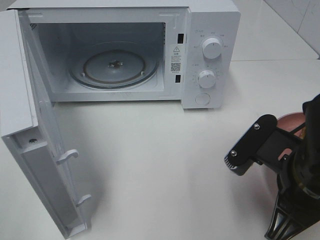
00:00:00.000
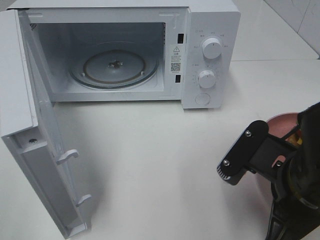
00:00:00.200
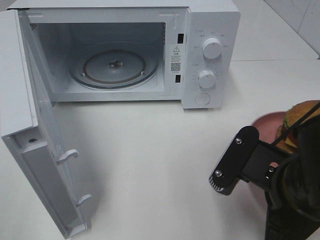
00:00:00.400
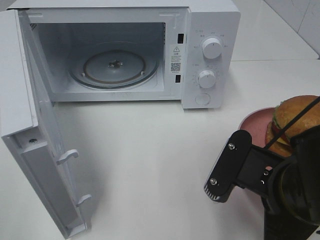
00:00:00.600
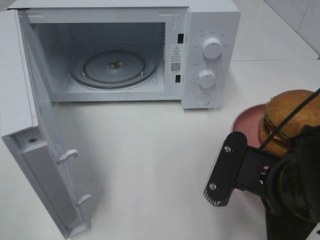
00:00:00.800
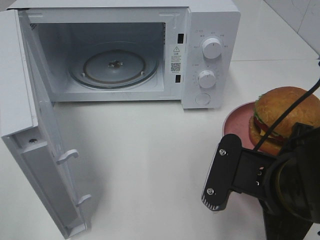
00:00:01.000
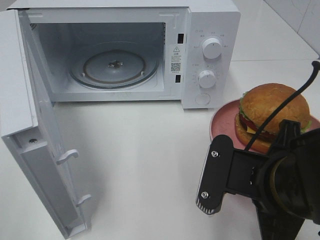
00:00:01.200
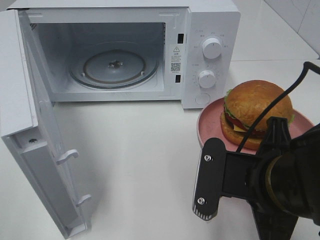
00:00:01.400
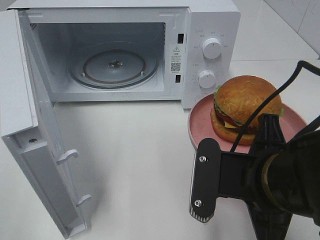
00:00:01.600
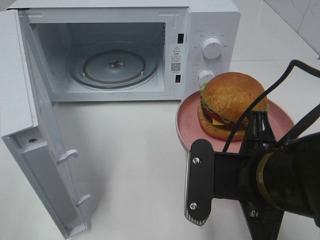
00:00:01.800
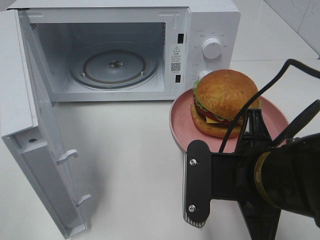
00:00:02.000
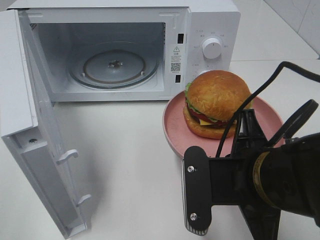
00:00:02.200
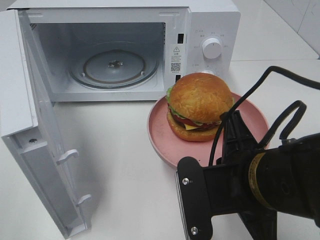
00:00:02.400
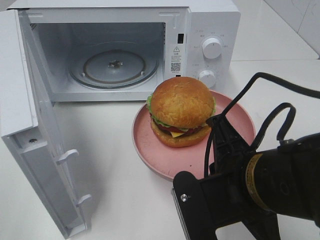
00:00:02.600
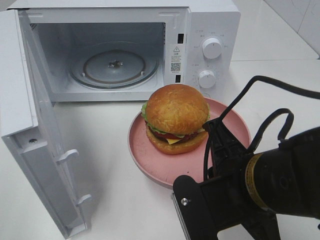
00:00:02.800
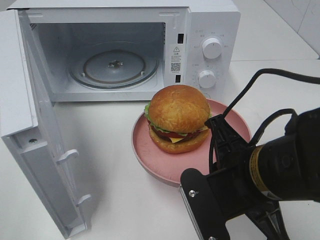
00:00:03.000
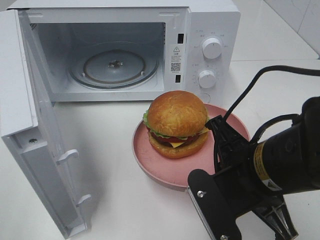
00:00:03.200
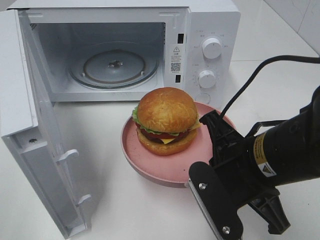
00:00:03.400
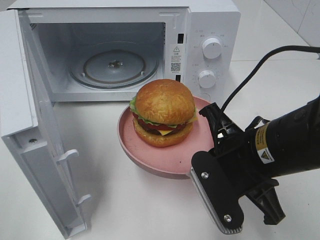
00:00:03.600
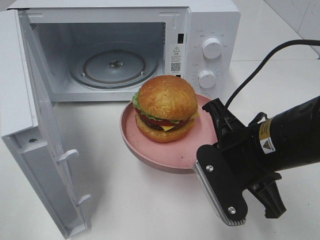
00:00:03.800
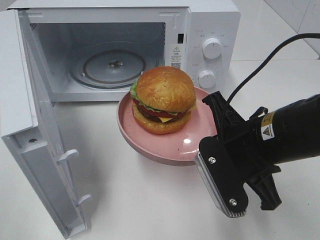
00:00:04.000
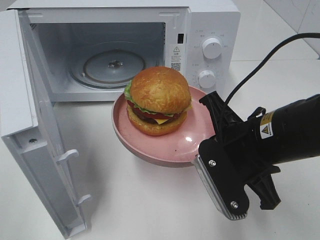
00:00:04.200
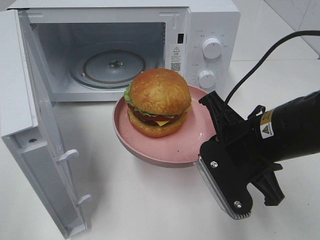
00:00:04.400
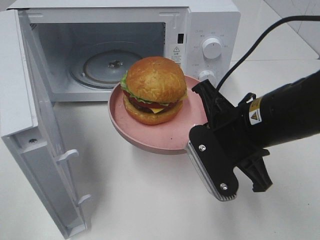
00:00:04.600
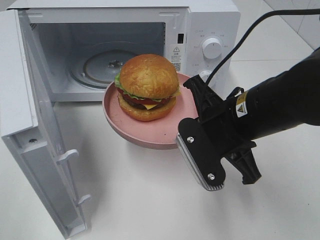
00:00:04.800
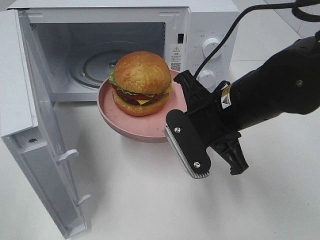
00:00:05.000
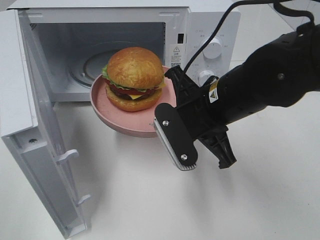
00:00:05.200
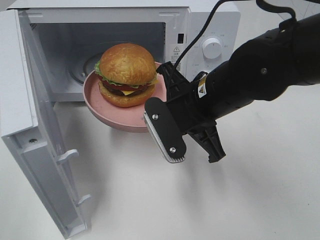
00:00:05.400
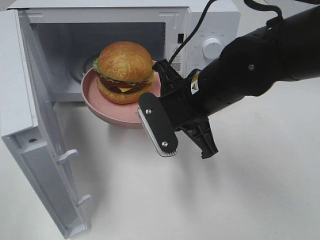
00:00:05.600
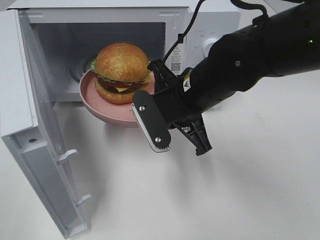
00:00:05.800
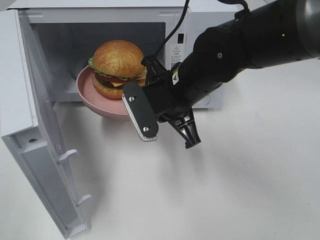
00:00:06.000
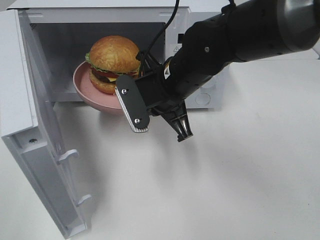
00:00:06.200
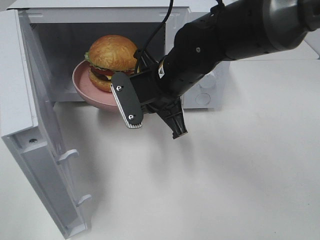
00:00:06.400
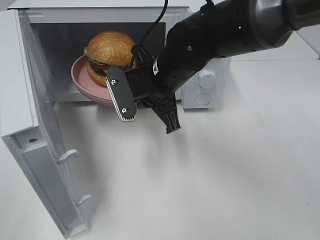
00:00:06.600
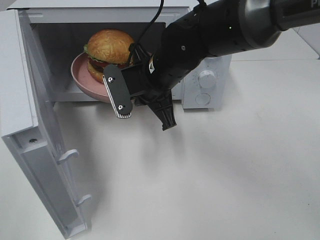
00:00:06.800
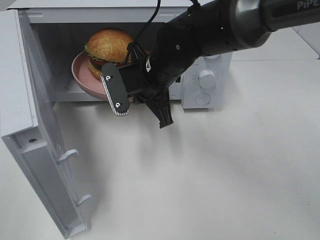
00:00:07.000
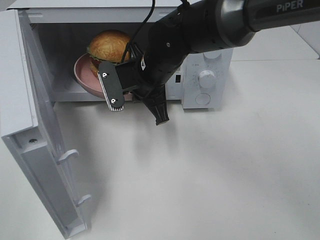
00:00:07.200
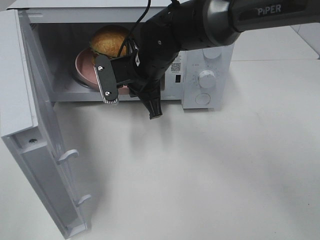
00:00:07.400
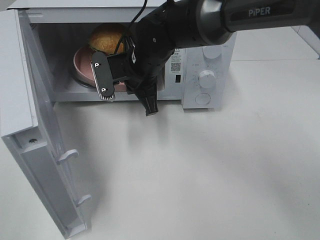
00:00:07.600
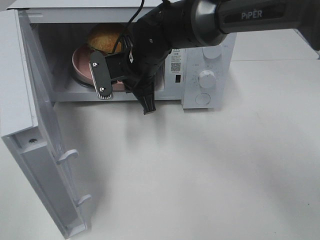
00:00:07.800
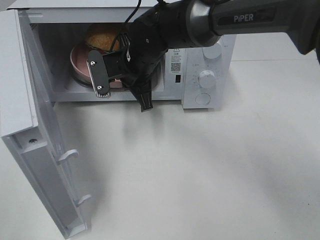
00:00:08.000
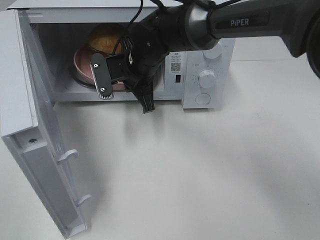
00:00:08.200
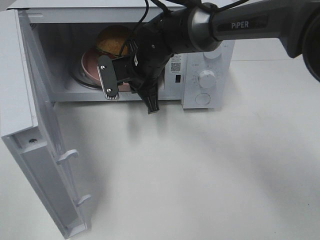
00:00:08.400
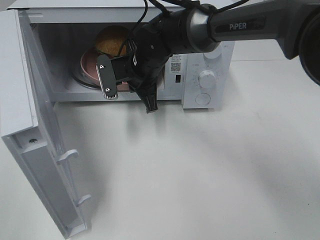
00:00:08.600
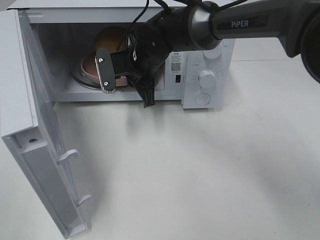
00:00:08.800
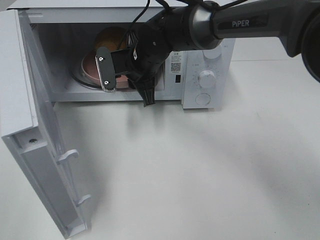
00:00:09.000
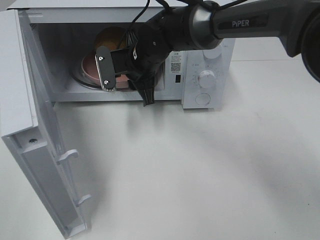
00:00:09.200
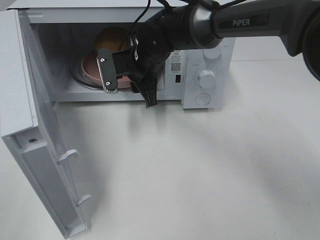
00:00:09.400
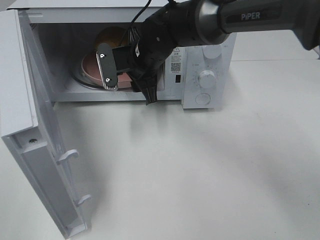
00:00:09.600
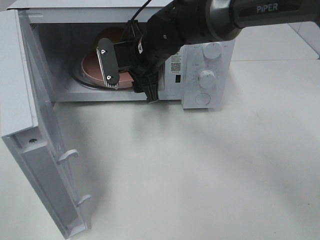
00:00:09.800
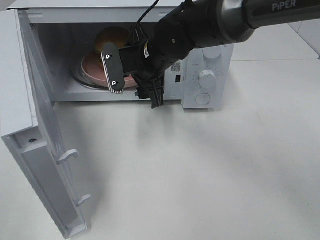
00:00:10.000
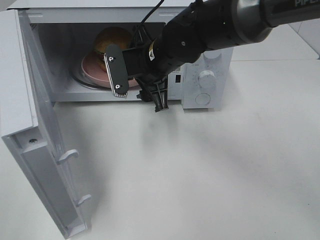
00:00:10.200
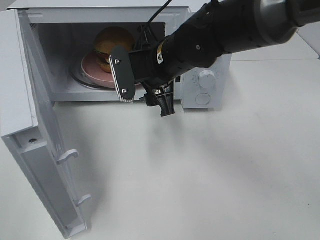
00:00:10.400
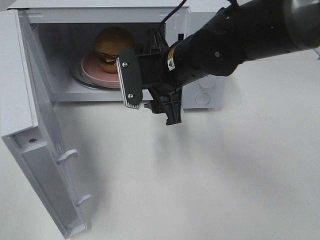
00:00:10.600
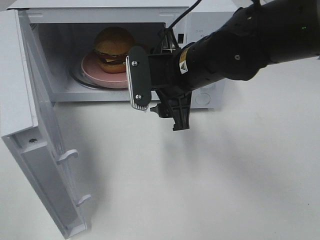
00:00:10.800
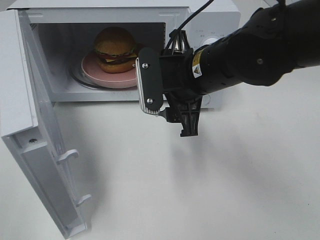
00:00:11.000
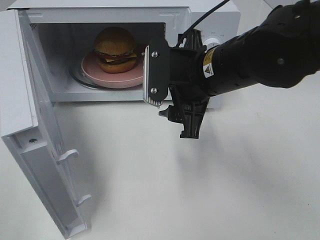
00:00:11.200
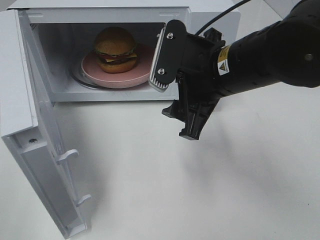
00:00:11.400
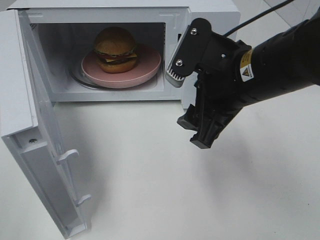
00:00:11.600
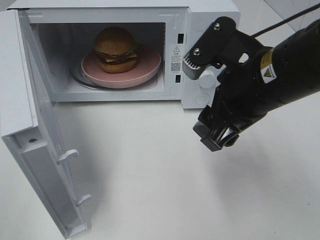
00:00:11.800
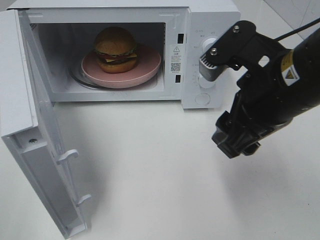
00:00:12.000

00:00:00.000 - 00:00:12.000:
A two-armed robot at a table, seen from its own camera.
Task of the whole recording: Heat the burger.
Step, 00:00:00.000 - 00:00:09.000: Right hand: place the plate in the microwave.
00:00:03.000 - 00:00:04.400: The right gripper ends up about 5 cm from where it was.
00:00:04.400 - 00:00:06.000: The right gripper goes approximately 15 cm forward and to the left.
00:00:06.000 - 00:00:07.600: The right gripper shifts approximately 10 cm forward and to the left.
00:00:07.600 - 00:00:09.000: The right gripper opens up.
00:00:09.000 - 00:00:10.400: The right gripper heads backward, covering roughly 5 cm, and opens its fingers.
00:00:10.400 - 00:00:12.000: The right gripper travels backward, to the right and upward by approximately 20 cm.

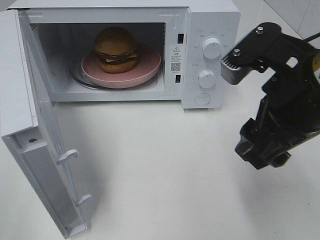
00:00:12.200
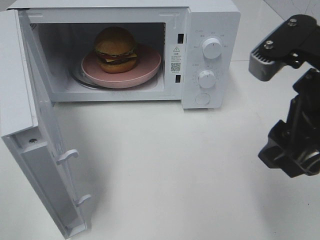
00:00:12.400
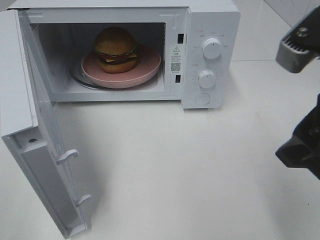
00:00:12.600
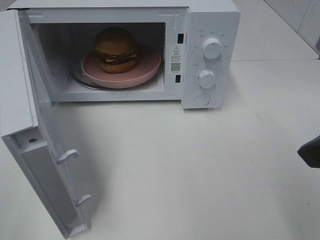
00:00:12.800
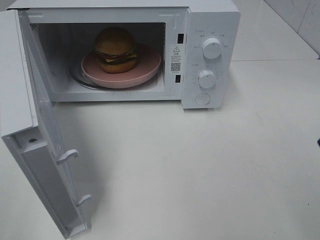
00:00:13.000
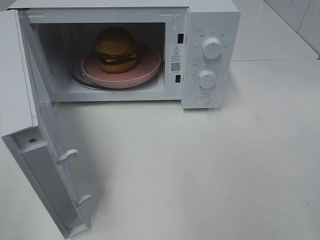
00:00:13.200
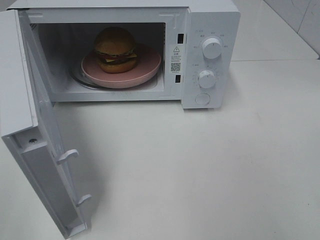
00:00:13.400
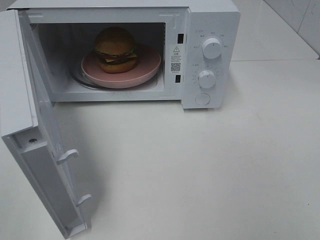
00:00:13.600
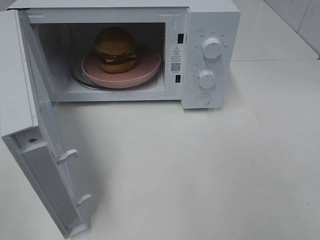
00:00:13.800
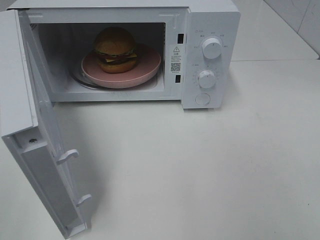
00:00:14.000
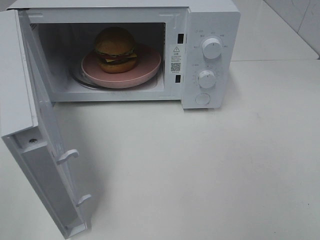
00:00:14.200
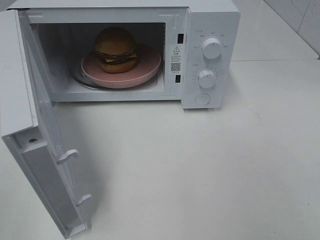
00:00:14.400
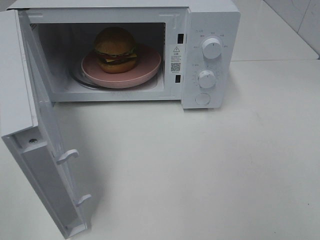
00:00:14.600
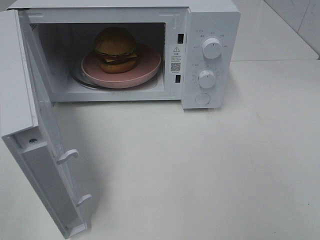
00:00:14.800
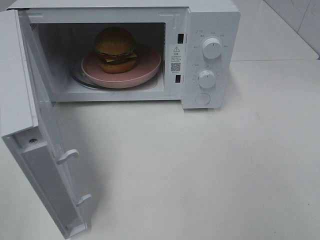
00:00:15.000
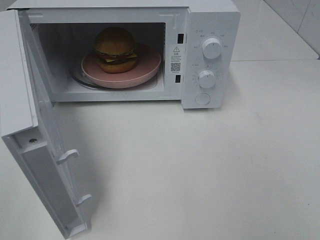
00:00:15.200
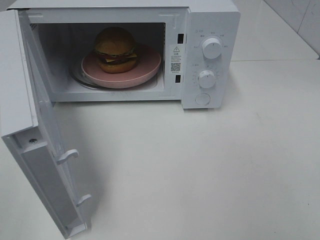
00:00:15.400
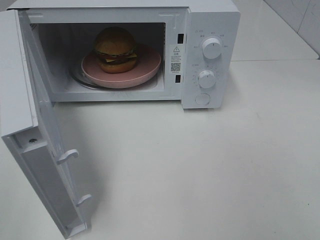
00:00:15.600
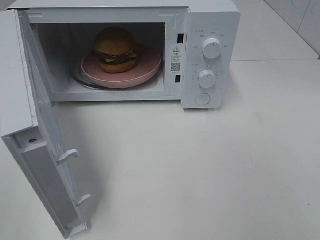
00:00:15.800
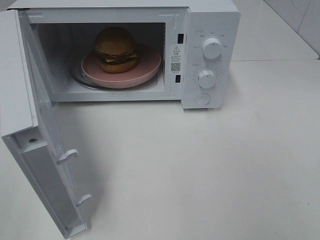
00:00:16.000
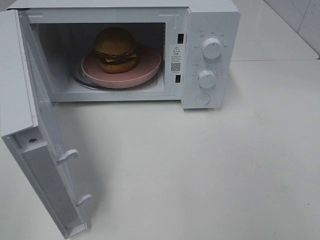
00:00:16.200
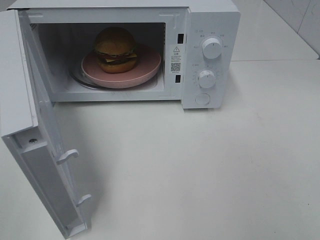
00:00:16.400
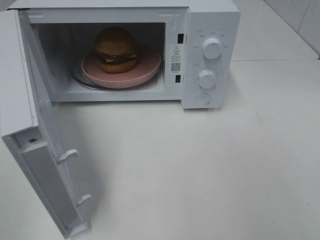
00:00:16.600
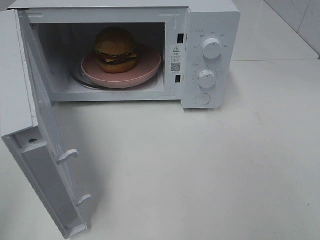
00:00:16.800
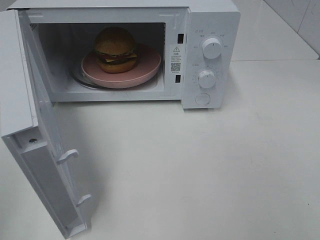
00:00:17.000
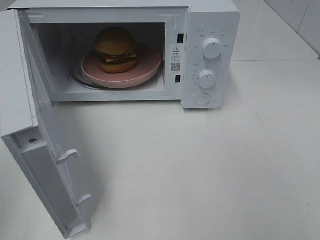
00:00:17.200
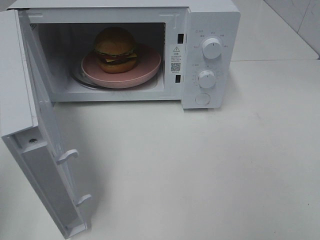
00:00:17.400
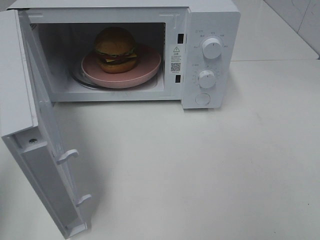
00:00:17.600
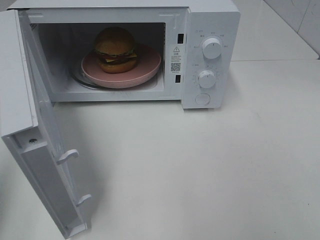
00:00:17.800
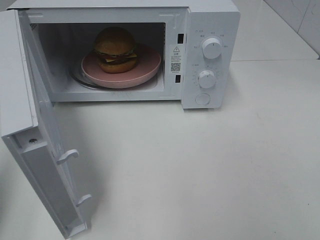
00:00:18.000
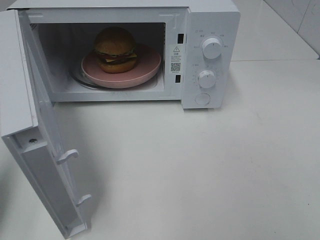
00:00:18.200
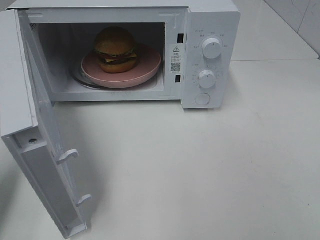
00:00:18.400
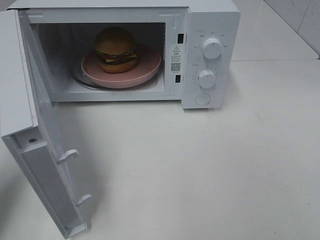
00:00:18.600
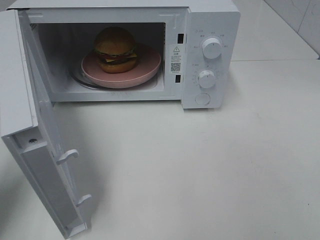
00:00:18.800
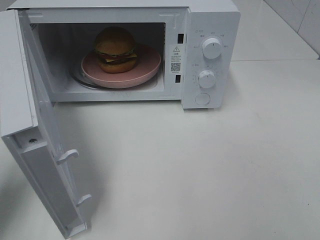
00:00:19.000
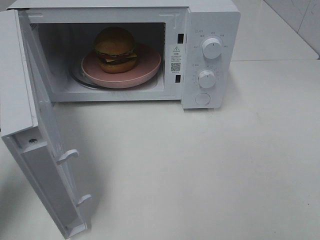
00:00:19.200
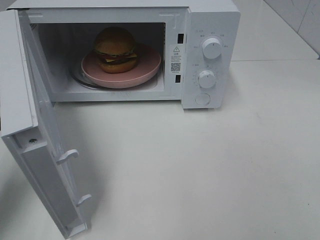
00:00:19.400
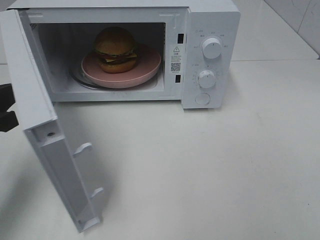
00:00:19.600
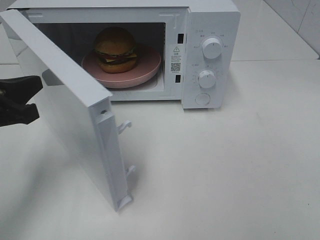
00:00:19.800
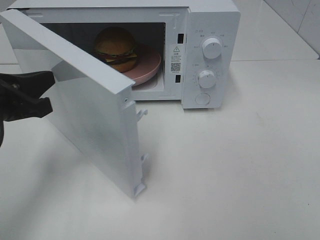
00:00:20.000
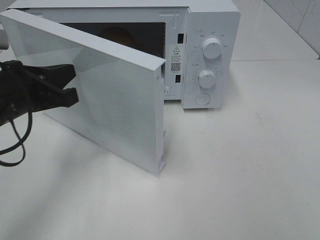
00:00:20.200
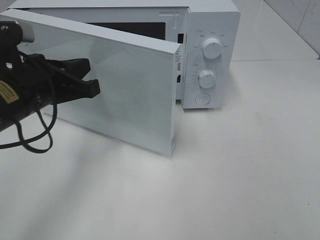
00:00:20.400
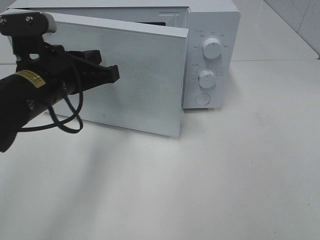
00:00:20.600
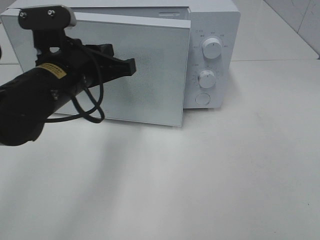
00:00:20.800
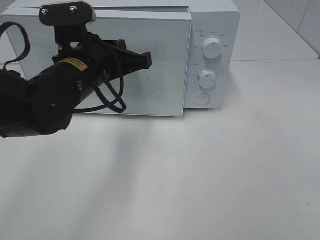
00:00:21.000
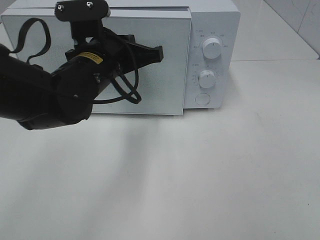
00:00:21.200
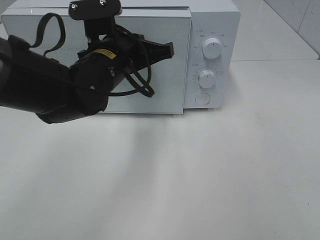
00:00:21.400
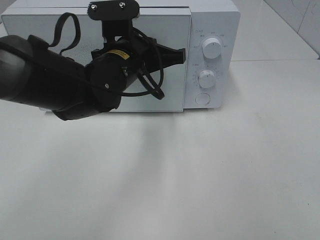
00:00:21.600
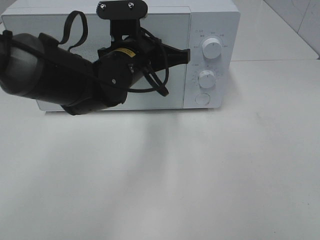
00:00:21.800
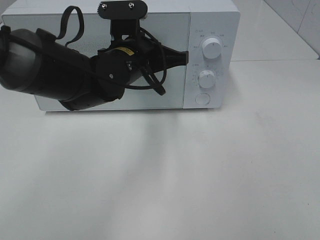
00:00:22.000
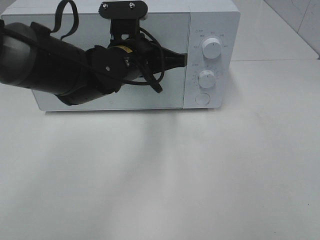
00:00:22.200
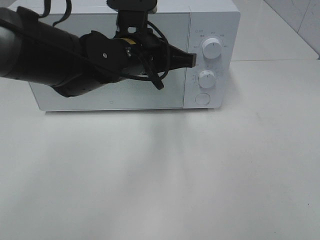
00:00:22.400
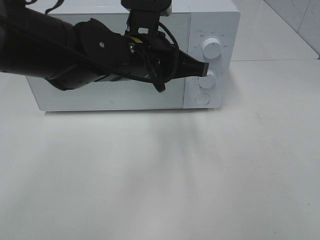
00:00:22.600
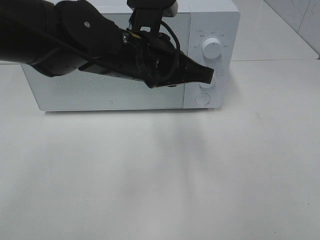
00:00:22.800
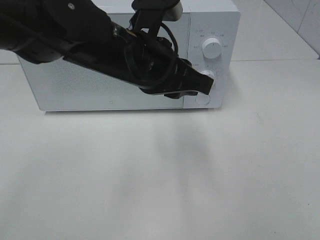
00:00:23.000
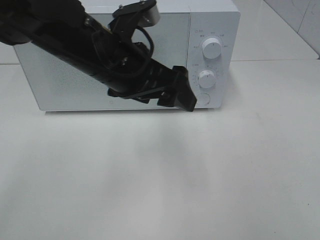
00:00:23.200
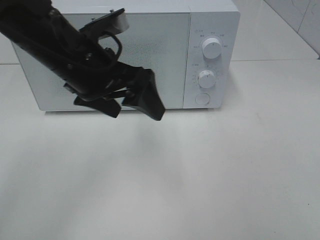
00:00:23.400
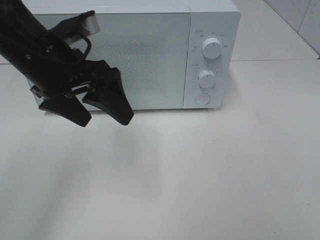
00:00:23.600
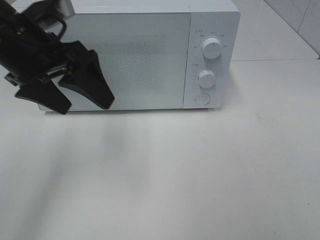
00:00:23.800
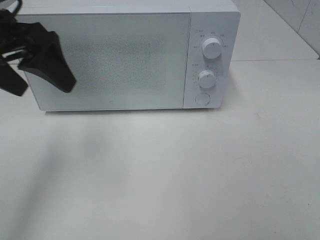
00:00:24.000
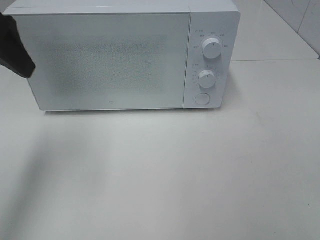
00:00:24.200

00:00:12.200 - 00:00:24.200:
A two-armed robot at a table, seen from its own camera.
Task of the whole recording: Heat the burger.
Step, 00:00:12.200 - 00:00:22.400: Left hand: close the microwave door.
00:00:12.200 - 00:00:13.800: The right gripper heads backward and to the right, covering some 20 cm.
00:00:16.600 - 00:00:18.200: The left gripper shifts roughly 15 cm forward and downward, and closes.
00:00:18.200 - 00:00:19.800: The left gripper travels to the right and forward by approximately 10 cm.
00:00:19.800 - 00:00:21.200: The left gripper travels to the right and forward by approximately 20 cm.
00:00:21.200 - 00:00:22.600: The left gripper moves to the right, some 5 cm.
00:00:22.600 - 00:00:24.200: The left gripper shifts roughly 25 cm to the left and upward, and opens.
